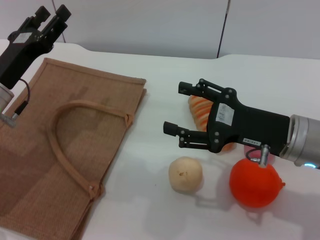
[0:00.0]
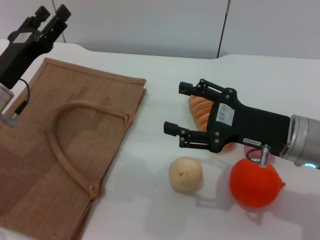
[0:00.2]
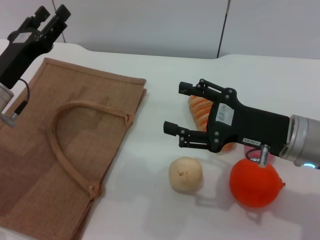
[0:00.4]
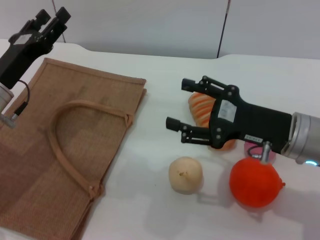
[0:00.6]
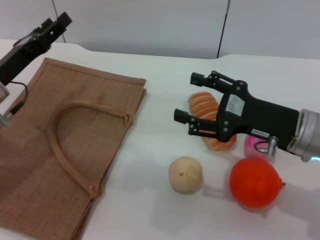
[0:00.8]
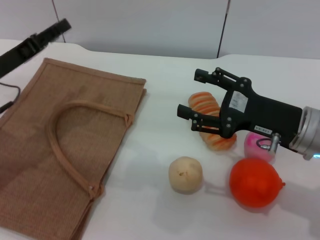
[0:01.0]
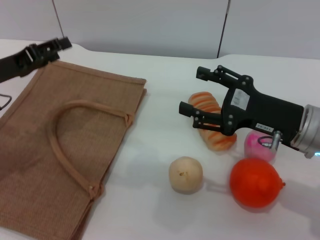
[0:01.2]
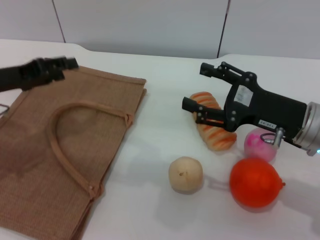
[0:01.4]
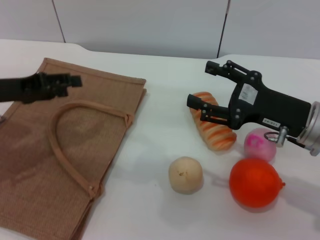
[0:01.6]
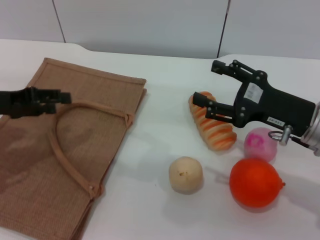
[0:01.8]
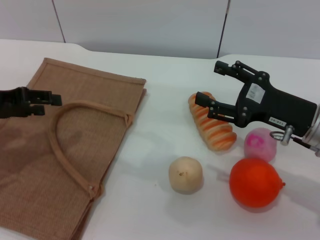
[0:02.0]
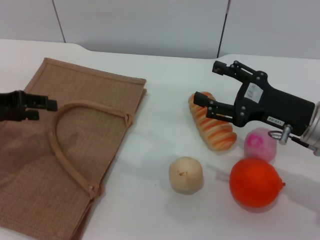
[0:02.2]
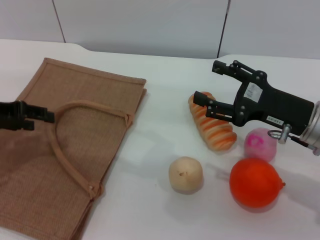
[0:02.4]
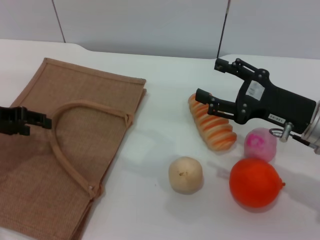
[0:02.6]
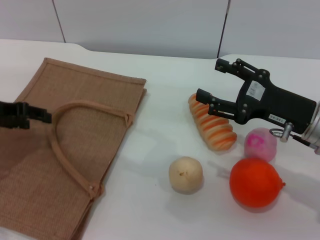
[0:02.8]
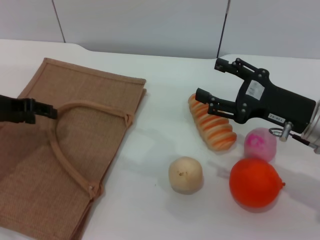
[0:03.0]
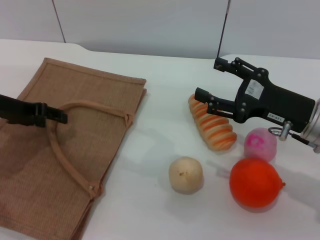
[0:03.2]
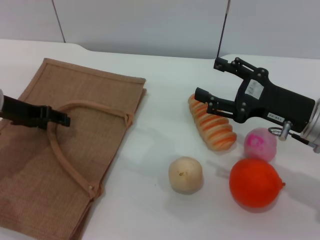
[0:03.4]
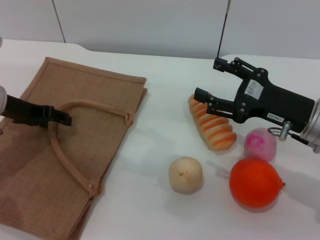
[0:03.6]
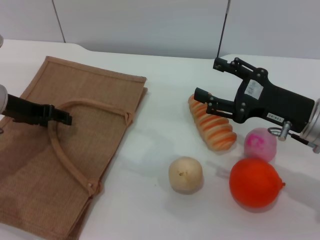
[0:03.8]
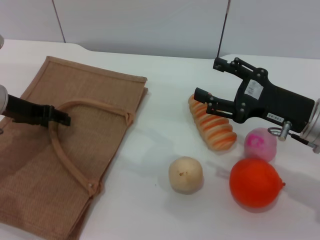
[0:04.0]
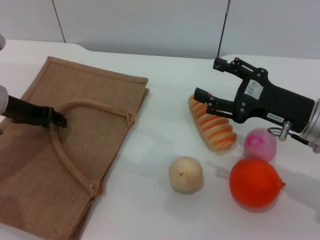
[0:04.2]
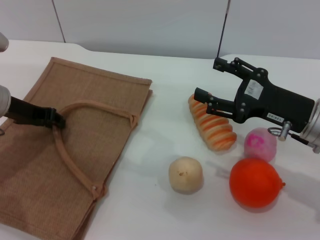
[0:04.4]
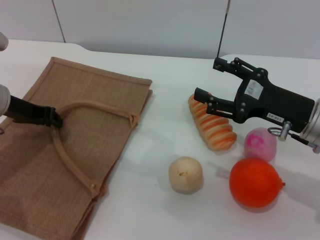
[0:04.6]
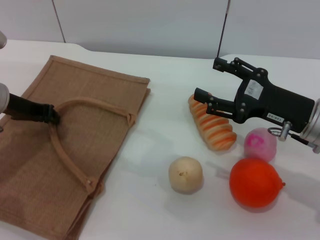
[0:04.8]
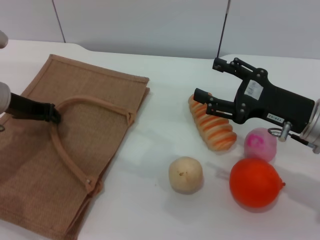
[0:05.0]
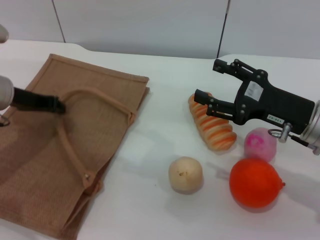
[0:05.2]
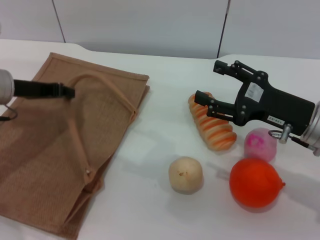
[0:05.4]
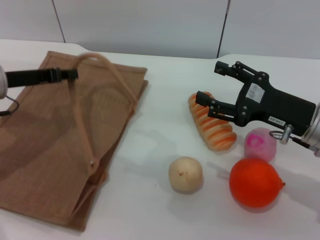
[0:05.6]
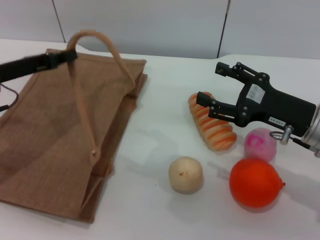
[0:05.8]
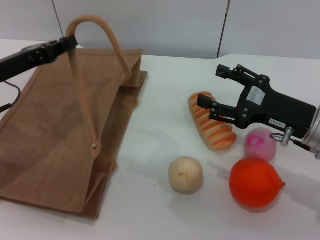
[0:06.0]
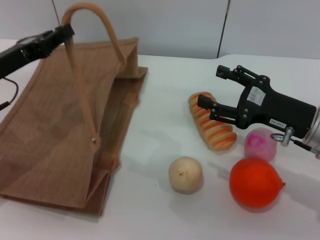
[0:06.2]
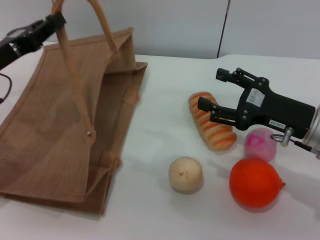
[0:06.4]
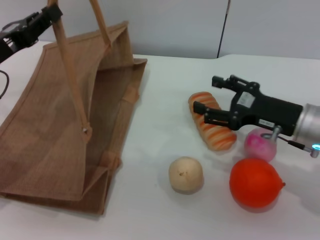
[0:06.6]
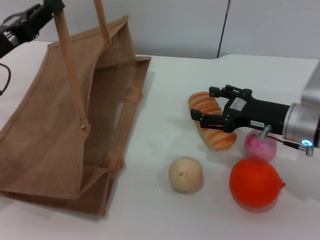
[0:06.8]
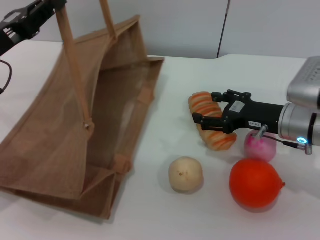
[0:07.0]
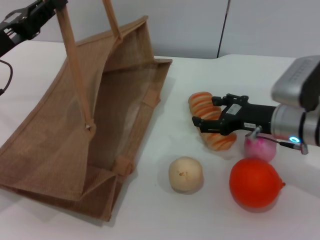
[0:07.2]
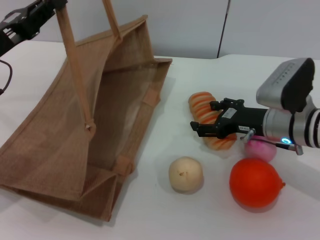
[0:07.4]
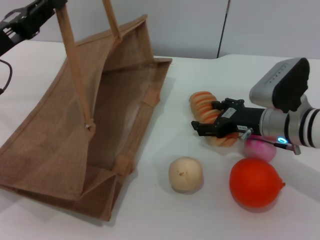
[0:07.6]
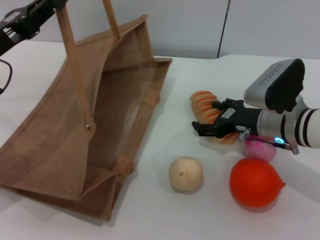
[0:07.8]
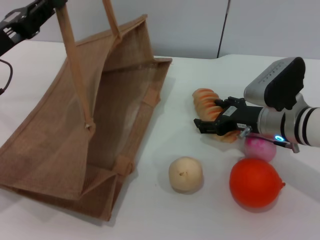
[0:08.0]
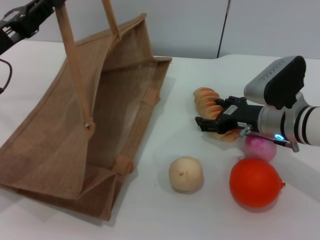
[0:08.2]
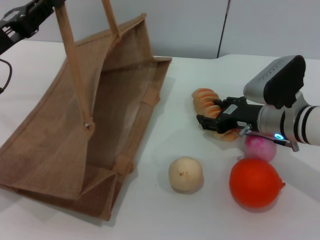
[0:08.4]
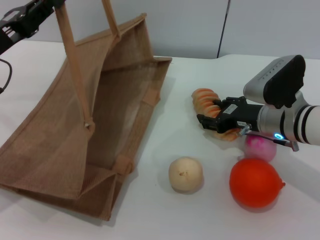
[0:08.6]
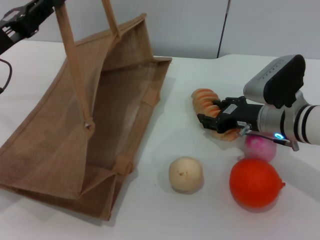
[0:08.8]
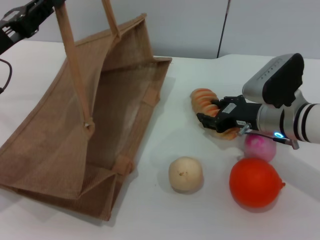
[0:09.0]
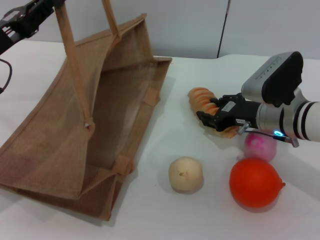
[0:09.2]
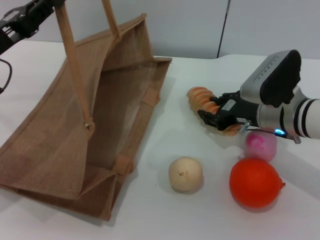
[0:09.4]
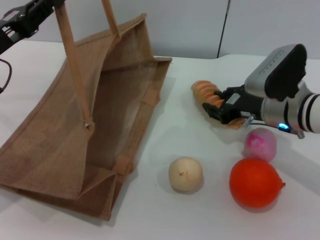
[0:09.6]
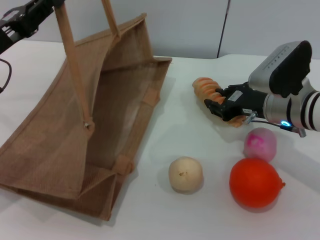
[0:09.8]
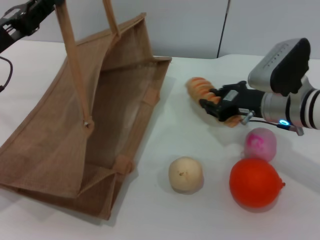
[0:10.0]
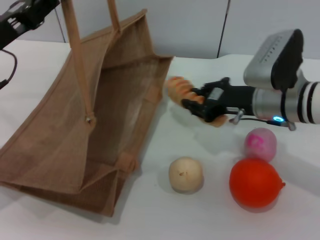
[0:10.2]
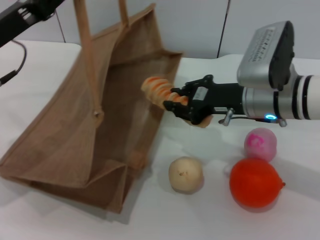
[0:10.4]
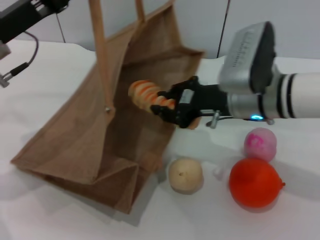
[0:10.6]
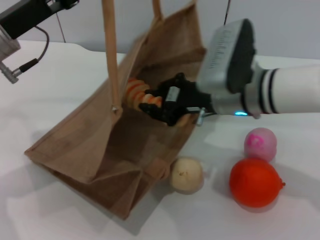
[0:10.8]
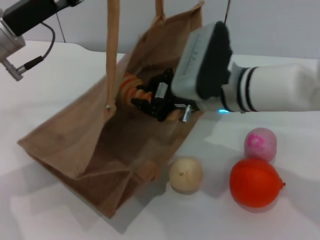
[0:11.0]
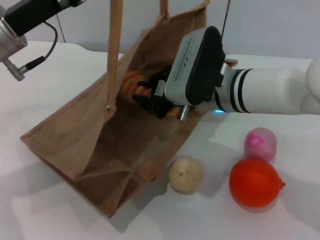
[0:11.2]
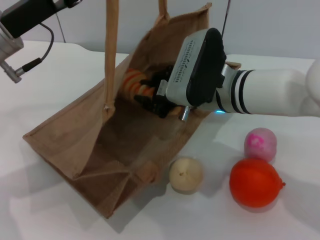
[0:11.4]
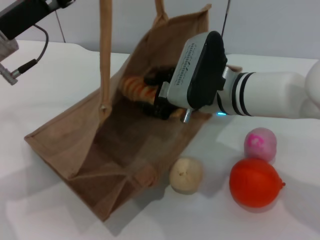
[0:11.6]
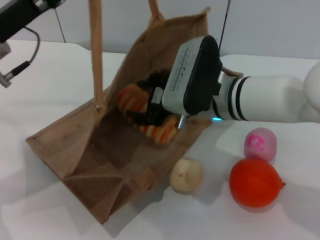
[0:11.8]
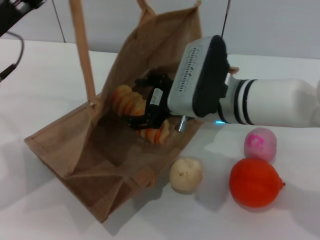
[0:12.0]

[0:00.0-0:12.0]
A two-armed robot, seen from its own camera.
Task of the whole recording: pick up the bread and egg yolk pastry from the table and place it in the brown handbag.
Step, 0:00.0 to 0:06.4: Lift the woven bag with the left gripper to open it.
Step, 0:06.6 to 0:09.8: Pick up the bread with the right gripper.
0:00.0 to 0:01.6: The left gripper is displaced to the left by approximately 5 cm.
0:03.0 to 0:04.4: The grippers move only a little.
0:04.4 to 0:06.0: The left gripper closes.
0:06.0 to 0:07.6: The right gripper moves forward, roughly 5 cm.
0:07.6 to 0:09.0: The right gripper closes up.
0:09.0 to 0:10.4: The right gripper heads upward, covering approximately 5 cm, and closes its fingers.
0:10.4 to 0:12.0: The right gripper moves to the left, about 5 cm, and opens up.

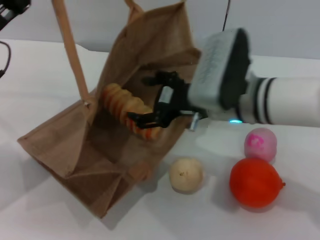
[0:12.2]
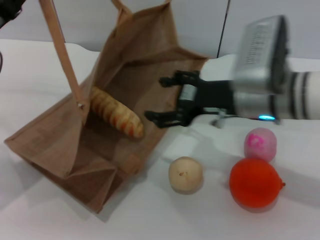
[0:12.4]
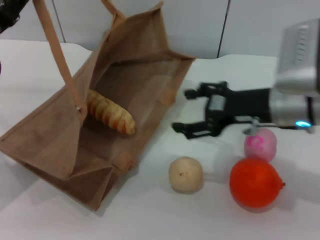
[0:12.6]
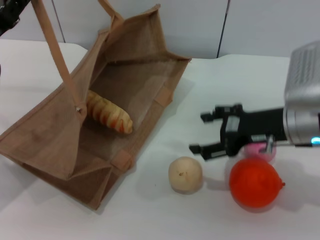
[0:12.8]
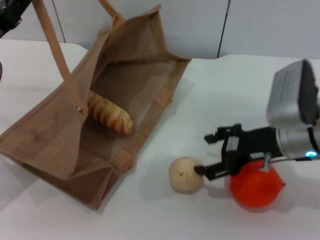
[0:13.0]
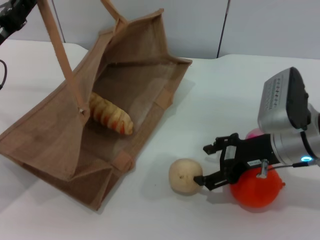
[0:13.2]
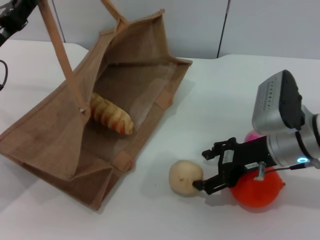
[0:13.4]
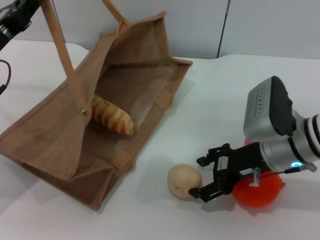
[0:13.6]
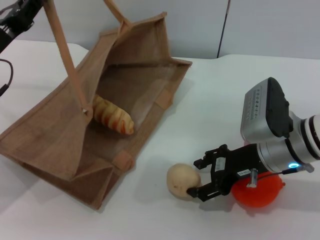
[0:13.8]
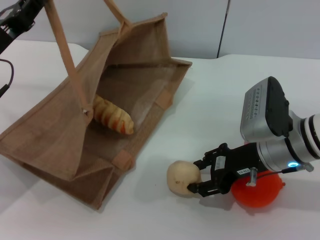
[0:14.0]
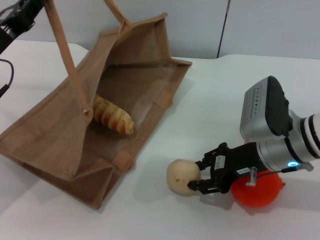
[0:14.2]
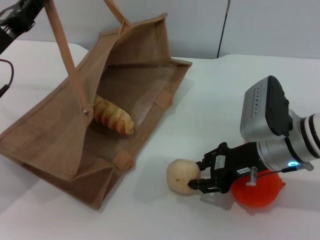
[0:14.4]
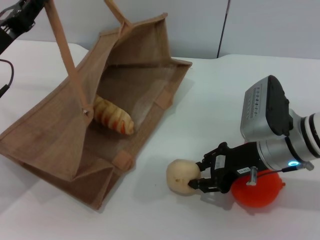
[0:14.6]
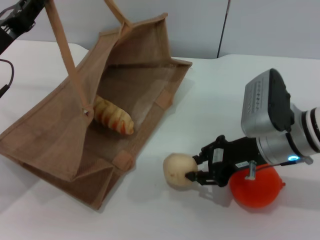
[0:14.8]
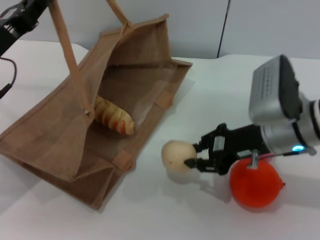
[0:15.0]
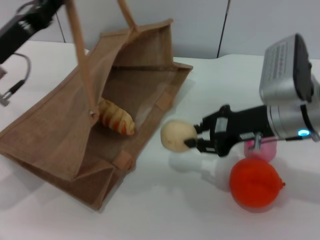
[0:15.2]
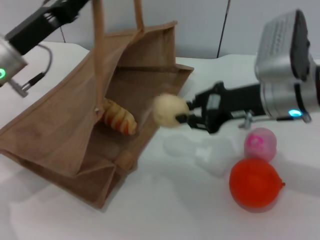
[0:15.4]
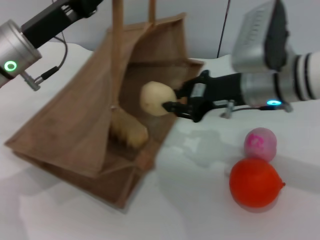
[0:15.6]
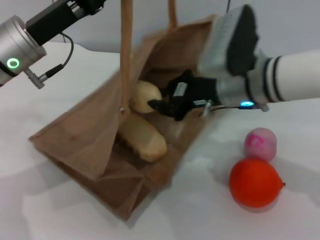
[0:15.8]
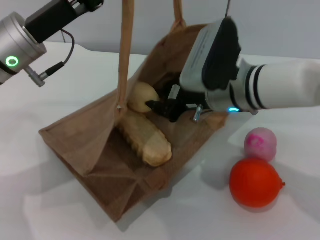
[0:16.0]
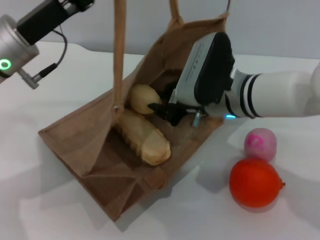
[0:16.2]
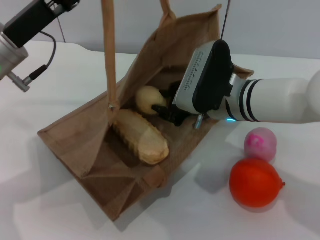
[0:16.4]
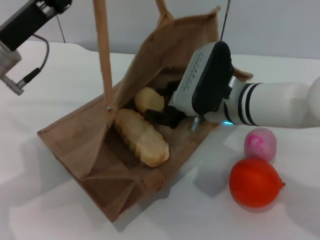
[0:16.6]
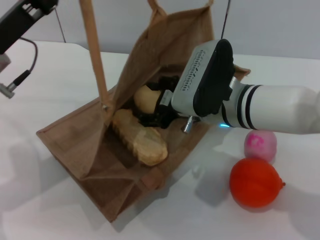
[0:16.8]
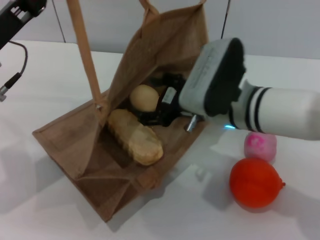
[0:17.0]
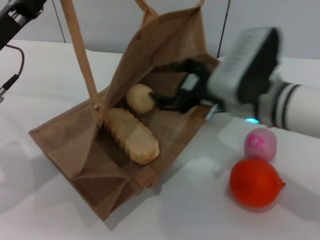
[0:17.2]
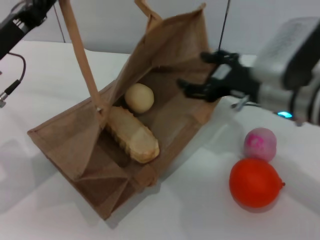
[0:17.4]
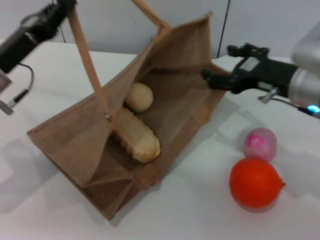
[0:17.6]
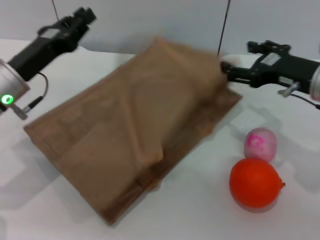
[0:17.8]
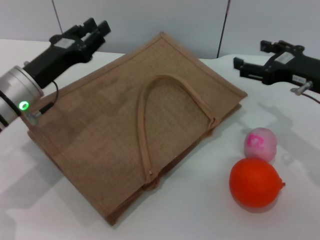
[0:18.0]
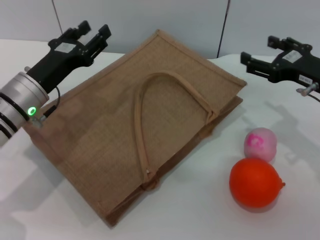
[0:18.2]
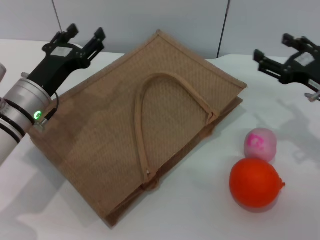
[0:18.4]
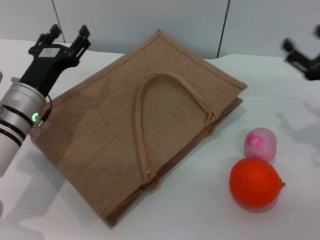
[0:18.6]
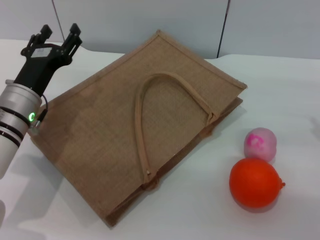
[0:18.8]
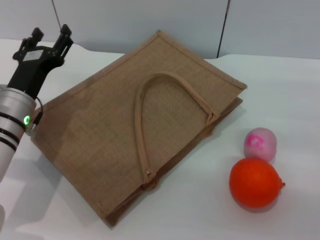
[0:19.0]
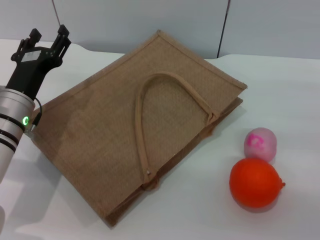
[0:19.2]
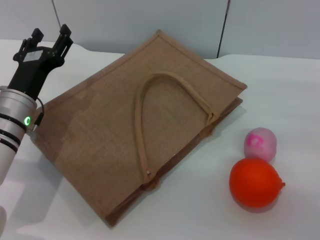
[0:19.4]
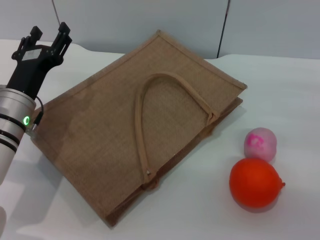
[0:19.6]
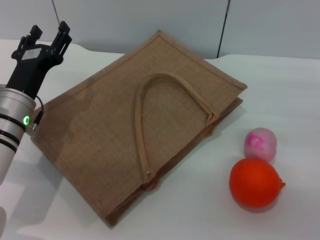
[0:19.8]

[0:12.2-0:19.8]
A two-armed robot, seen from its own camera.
Task of the whole recording: pick up the bread and egg yolk pastry from the table and place it in the brown handbag.
Step, 0:12.4 to 0:15.0: Pick up the egg yolk pastry with the right gripper.
Step, 0:15.2 to 0:17.0: Place the egg yolk pastry into the woven bag with the right gripper.
Step, 0:17.2 to 0:18.0: Lower the woven bag with the left gripper to close it.
0:12.2 to 0:13.8: The right gripper shifts approximately 10 cm to the right and downward.
0:13.8 to 0:15.2: The right gripper heads upward, covering roughly 5 cm, and closes its fingers.
0:15.2 to 0:16.8: The right gripper moves to the left, about 10 cm.
0:16.8 to 0:18.2: The right gripper travels to the right by approximately 20 cm, and opens its fingers. Meanwhile the left gripper moves downward, some 10 cm.
0:18.2 to 0:19.8: The left gripper opens. The right gripper is displaced to the right, downward and backward by approximately 10 cm.
